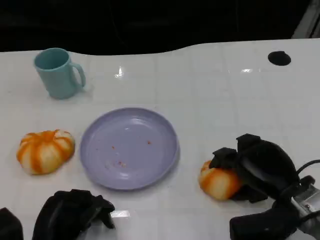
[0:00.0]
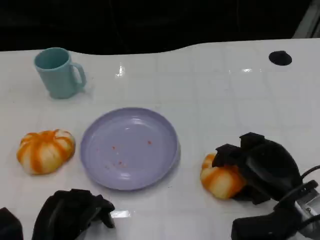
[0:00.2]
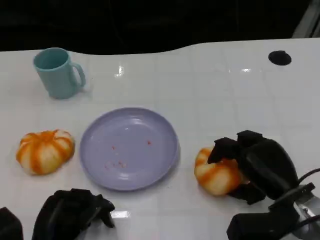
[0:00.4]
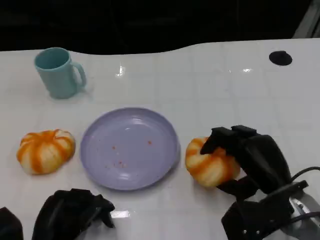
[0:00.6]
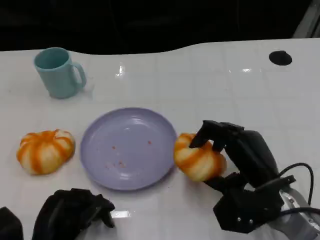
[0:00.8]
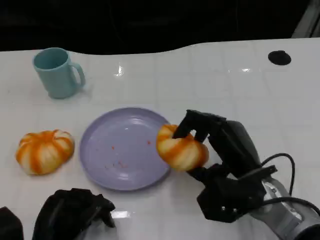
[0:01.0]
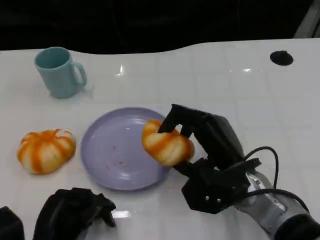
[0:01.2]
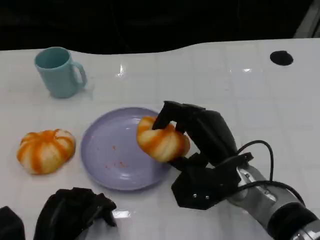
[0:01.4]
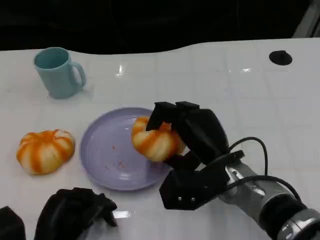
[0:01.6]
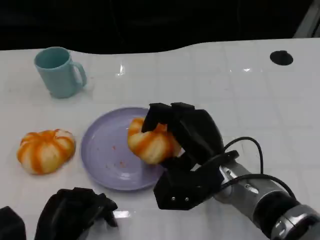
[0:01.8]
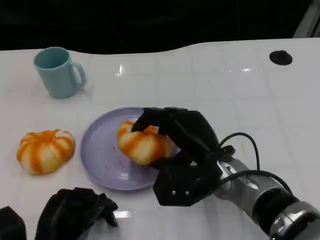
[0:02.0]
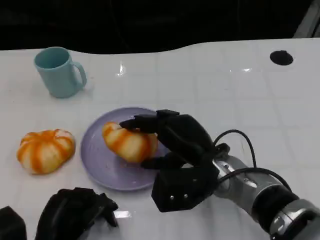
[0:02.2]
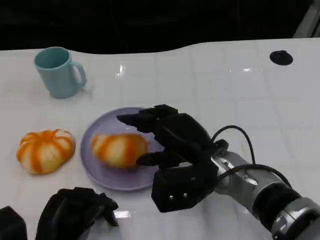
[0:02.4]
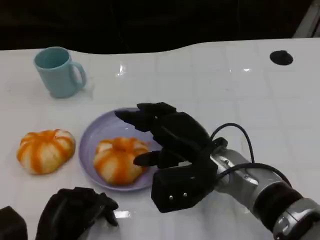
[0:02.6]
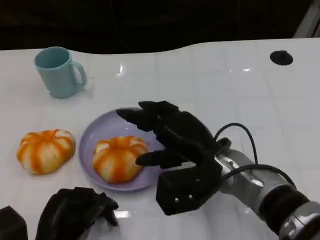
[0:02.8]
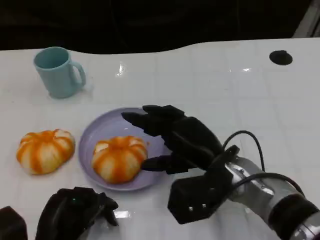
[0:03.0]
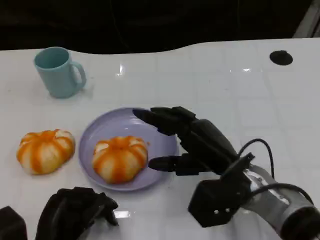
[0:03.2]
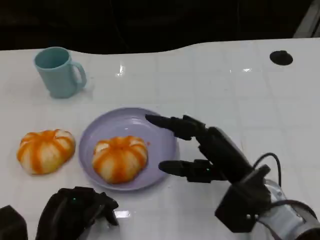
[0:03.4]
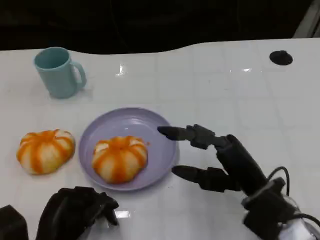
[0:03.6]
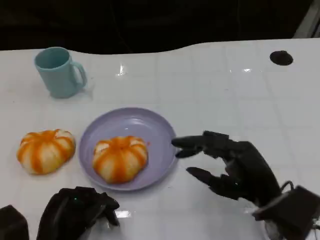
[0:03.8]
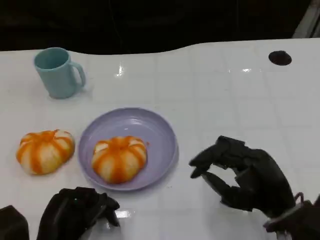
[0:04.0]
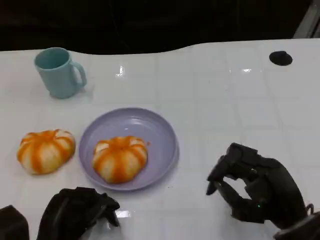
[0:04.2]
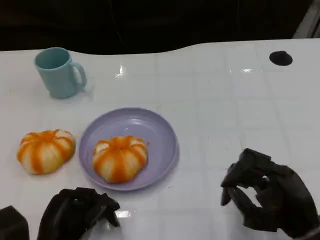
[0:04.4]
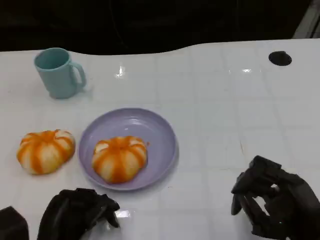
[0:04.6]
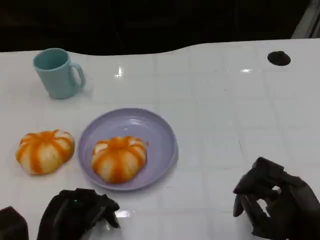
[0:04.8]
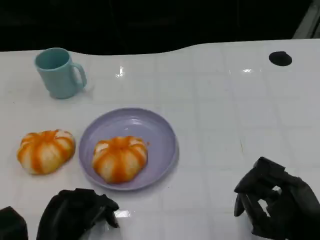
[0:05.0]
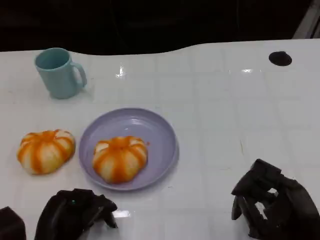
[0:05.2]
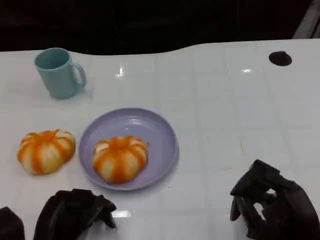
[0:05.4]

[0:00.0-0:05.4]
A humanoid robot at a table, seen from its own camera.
Task of the whole recording: Grasp the bread from the table and place it into the plate.
0:00.0 to 0:01.4: The right hand goes roughly 10 cm to the left.
0:02.8 to 0:04.0: The right hand moves to the right and backward, some 15 cm.
0:04.0 to 0:05.4: The right hand moves roughly 5 cm.
